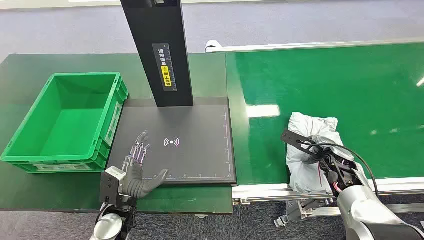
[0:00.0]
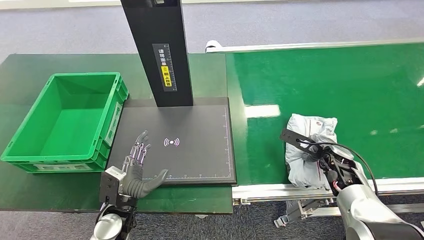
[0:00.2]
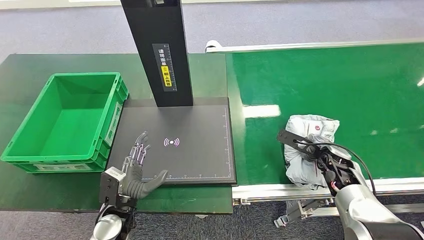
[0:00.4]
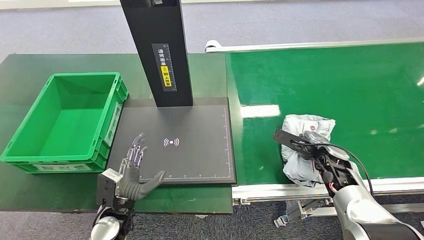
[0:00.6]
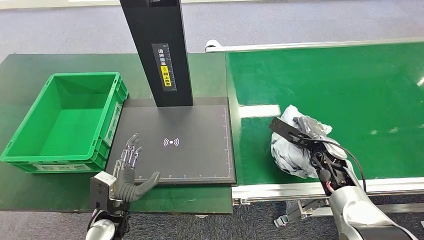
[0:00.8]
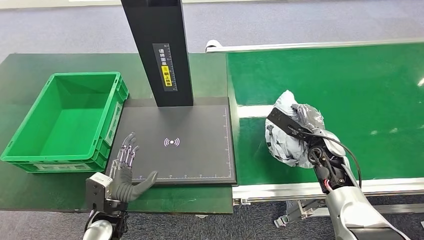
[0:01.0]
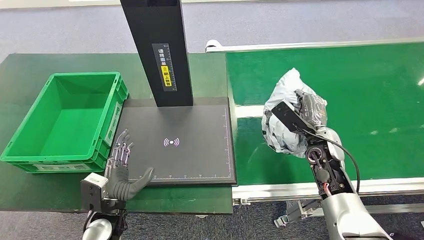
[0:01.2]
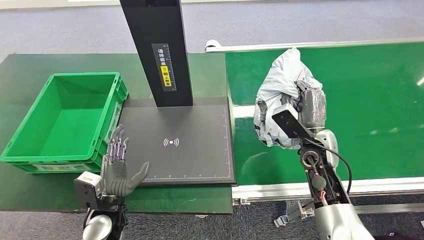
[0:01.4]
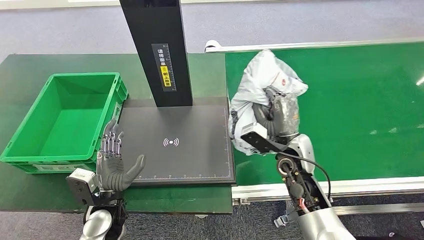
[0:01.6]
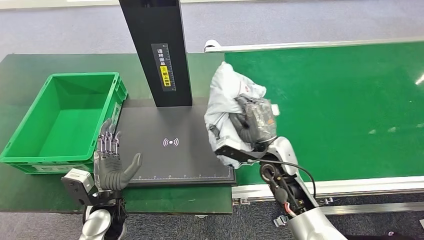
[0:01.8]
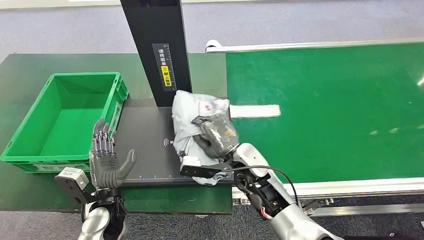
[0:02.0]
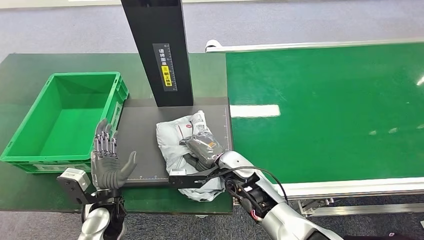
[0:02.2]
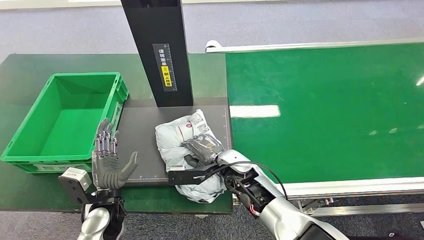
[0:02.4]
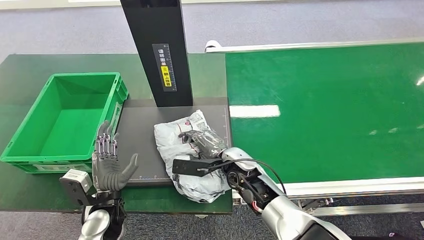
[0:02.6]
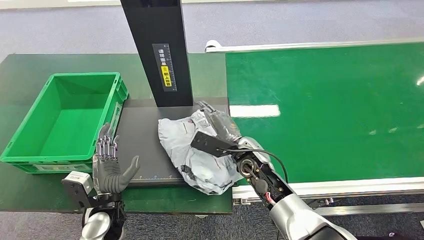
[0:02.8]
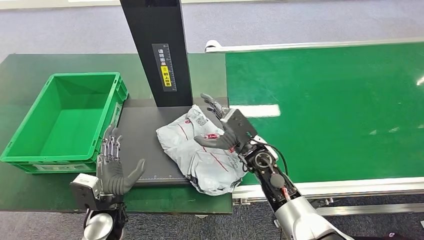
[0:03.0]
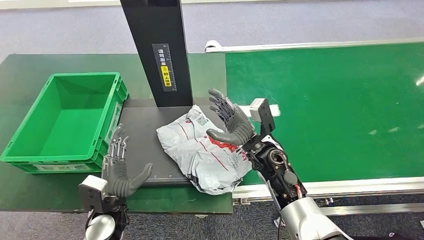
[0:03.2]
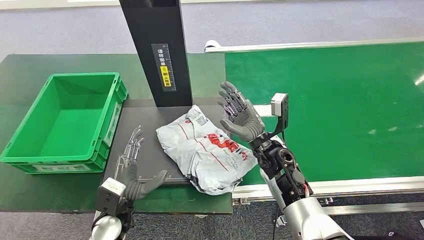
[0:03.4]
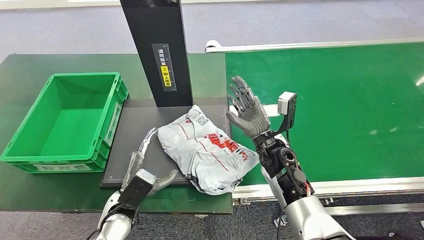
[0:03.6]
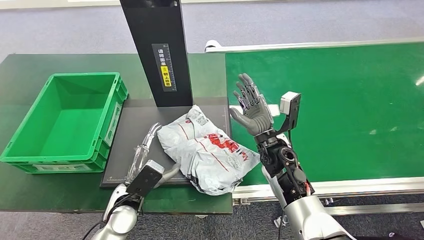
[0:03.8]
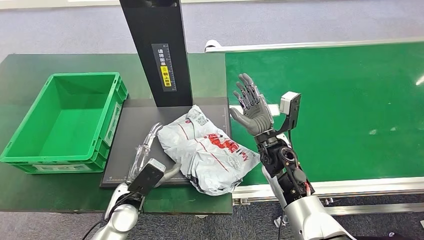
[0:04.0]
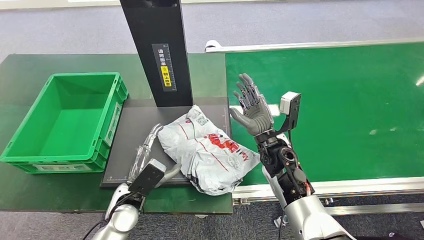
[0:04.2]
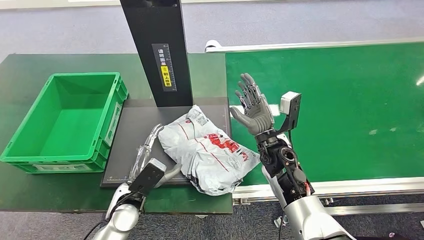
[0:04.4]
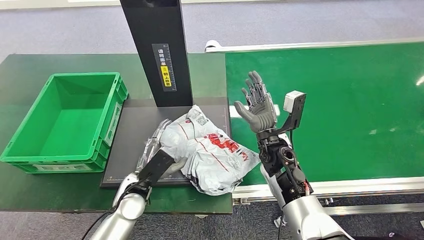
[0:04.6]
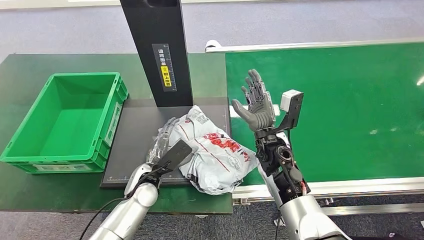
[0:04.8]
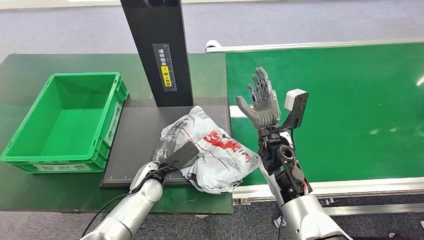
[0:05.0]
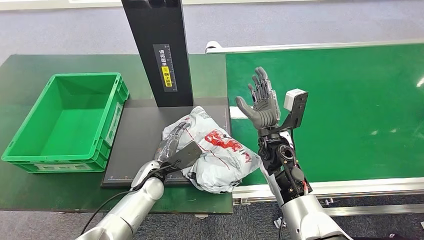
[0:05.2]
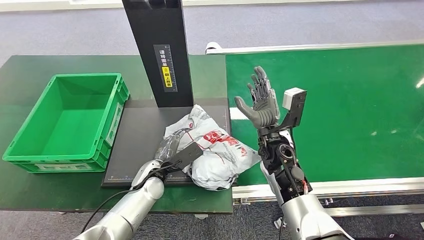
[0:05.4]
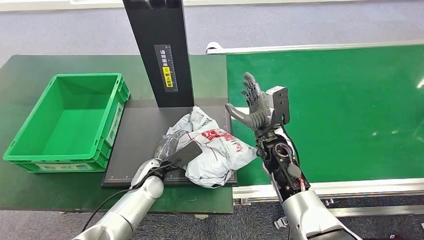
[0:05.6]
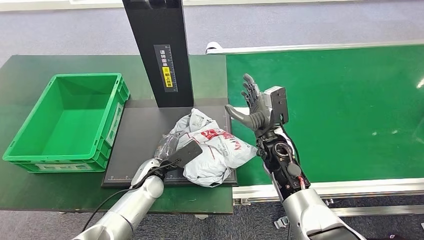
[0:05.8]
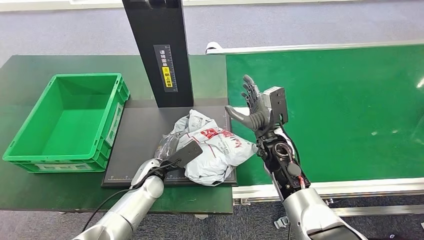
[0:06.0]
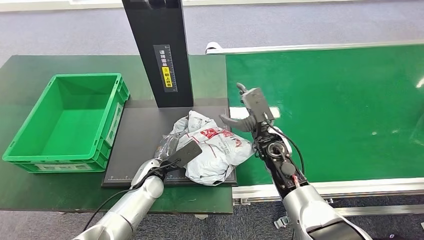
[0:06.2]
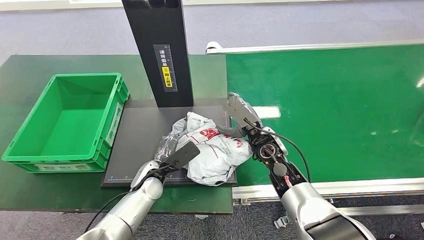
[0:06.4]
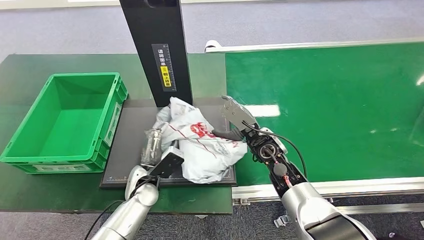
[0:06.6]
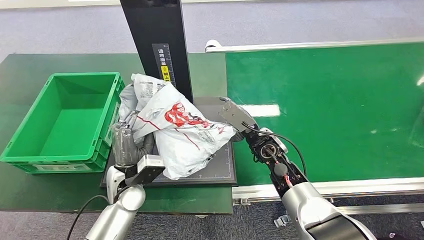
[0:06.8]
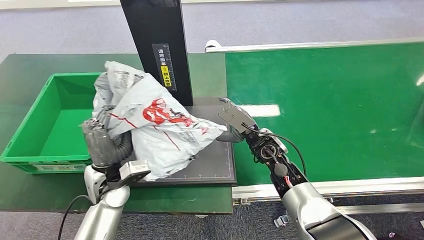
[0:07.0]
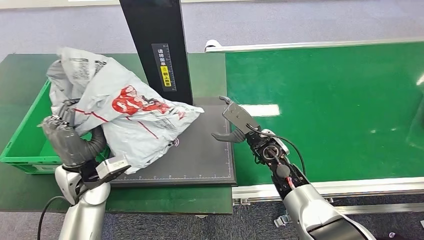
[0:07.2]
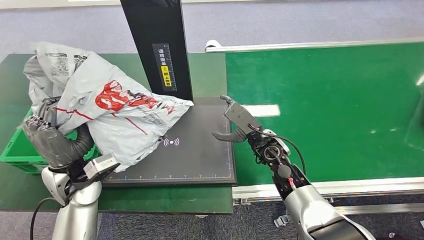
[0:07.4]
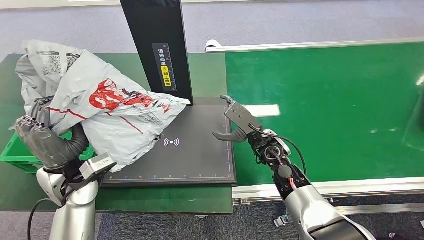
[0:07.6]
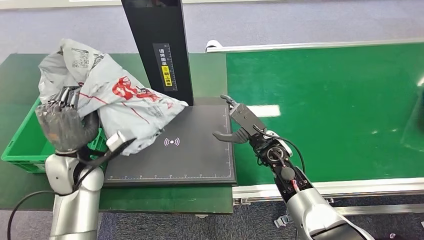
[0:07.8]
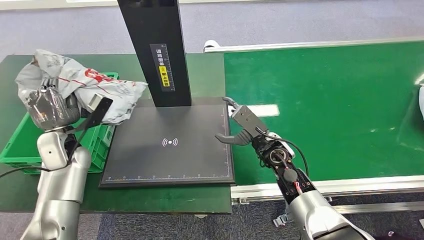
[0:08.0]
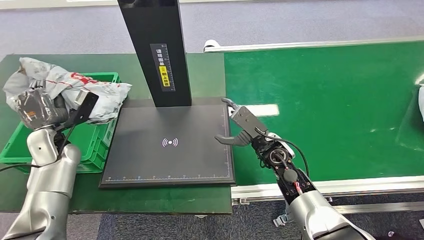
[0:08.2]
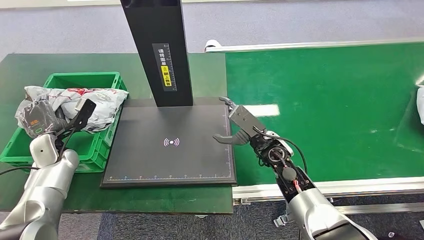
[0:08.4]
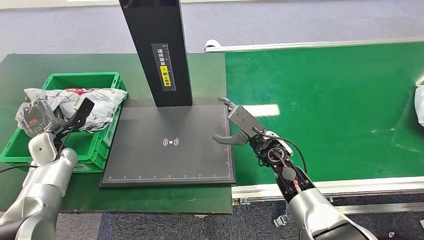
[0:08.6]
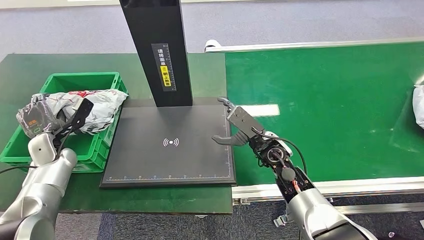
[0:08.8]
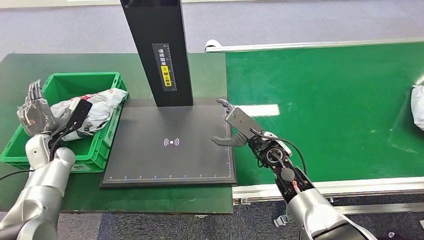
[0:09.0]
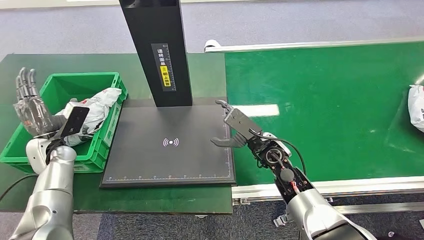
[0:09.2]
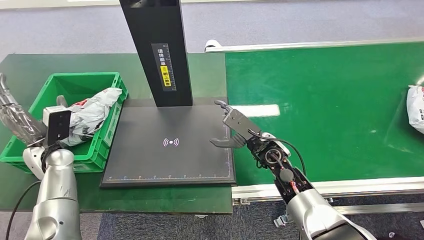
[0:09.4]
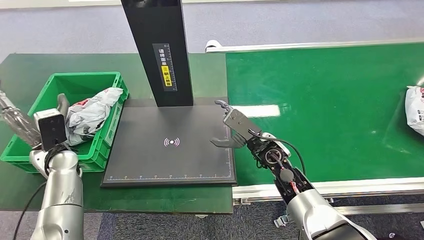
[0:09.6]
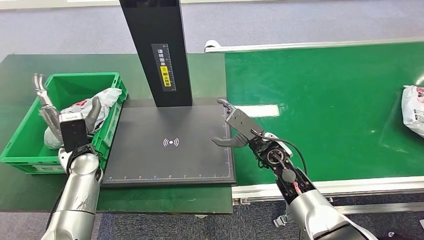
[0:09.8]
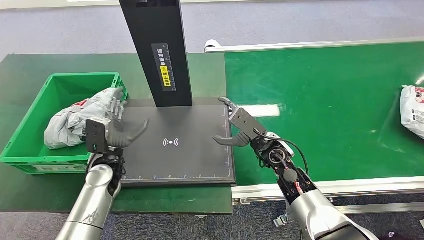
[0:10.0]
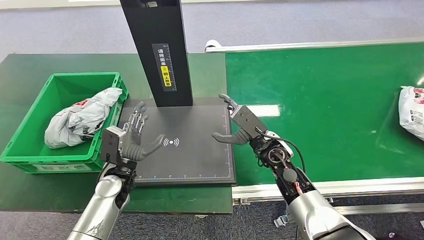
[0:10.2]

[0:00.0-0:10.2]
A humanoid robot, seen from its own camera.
Step, 0:00.0 to 0:01.8: Pick up the package from the conveyor belt.
Step, 0:02.0 to 0:03.8: Place the package onto the inbound machine.
Step, 0:04.0 to 0:07.2: Pick up the package from the inbound machine.
Step, 0:07.4 to 0:10.2: Place the package into the parcel locker.
0:01.4 to 0:03.0: The right hand goes some 15 cm to the left.
0:04.4 to 0:05.8: The left hand travels forward by some 10 cm.
0:08.8 to 0:10.2: The left hand moves to the right, some 20 cm.
